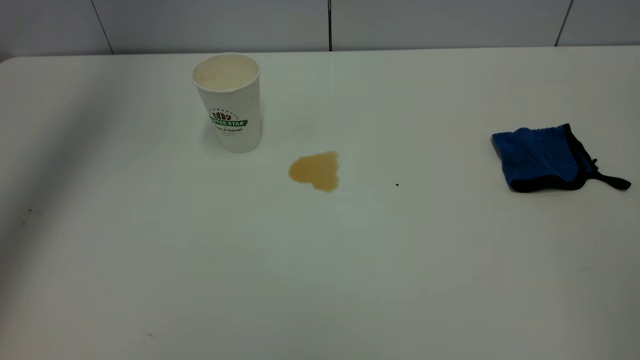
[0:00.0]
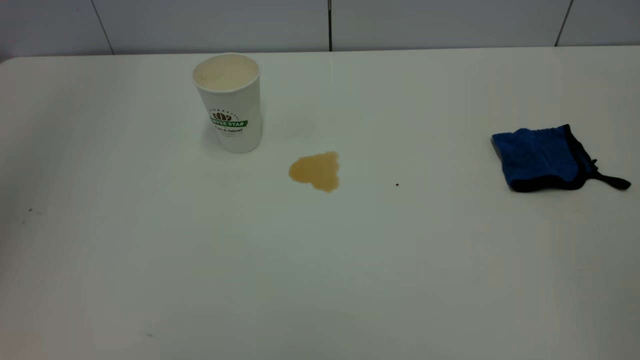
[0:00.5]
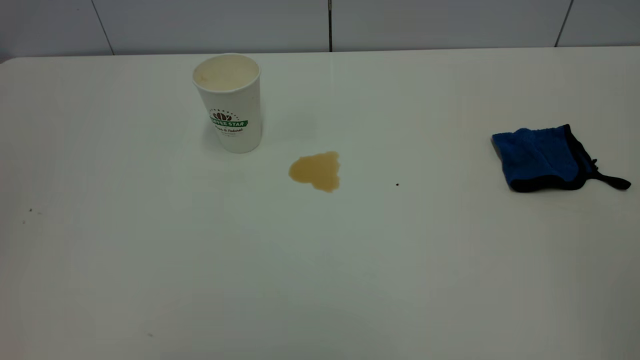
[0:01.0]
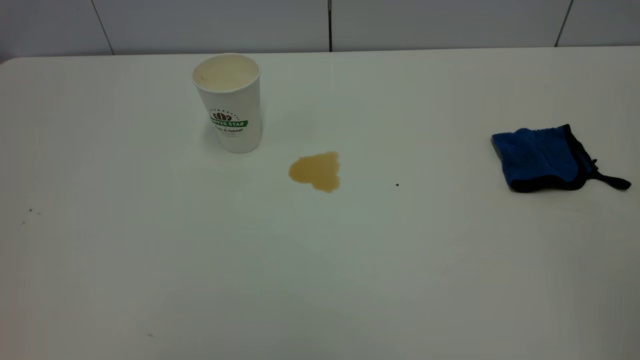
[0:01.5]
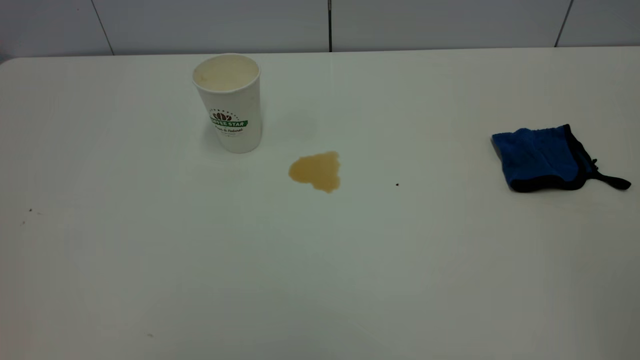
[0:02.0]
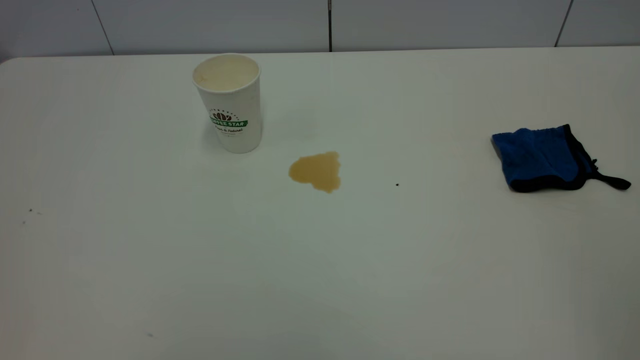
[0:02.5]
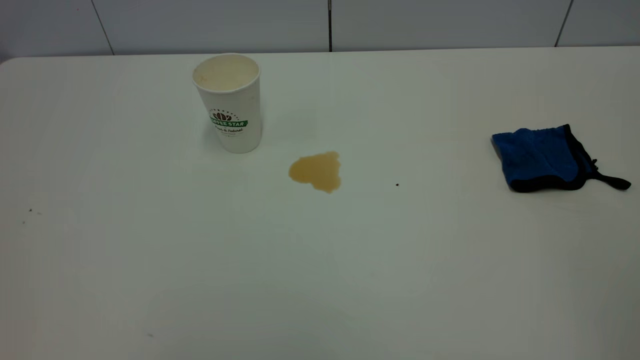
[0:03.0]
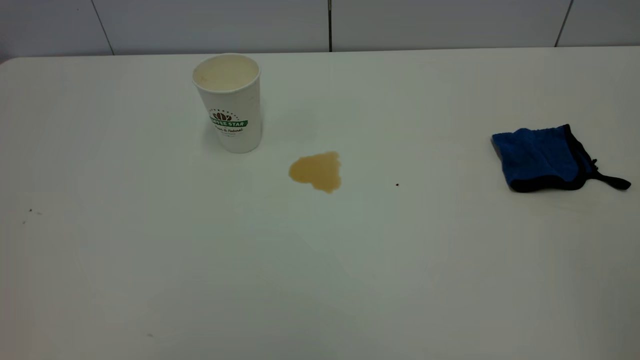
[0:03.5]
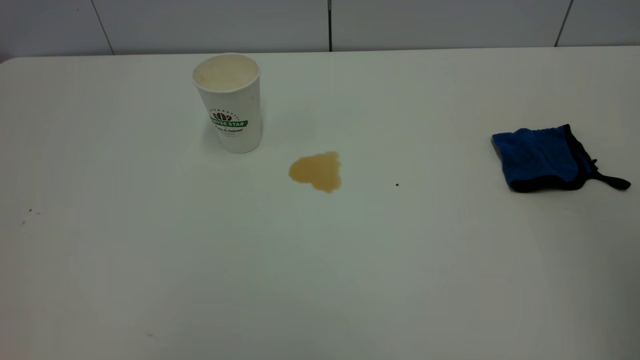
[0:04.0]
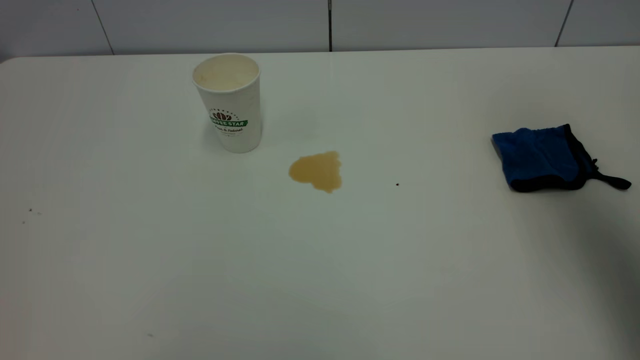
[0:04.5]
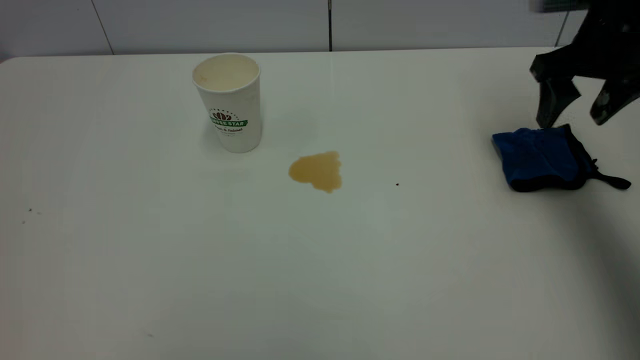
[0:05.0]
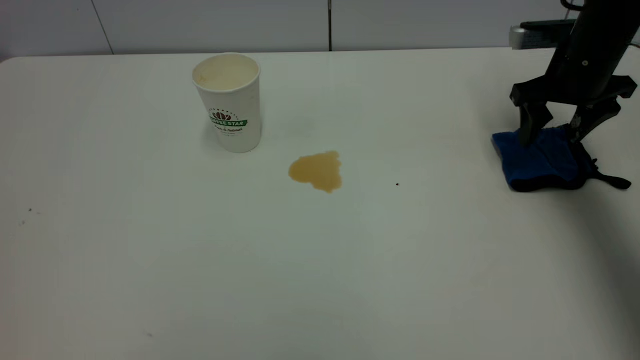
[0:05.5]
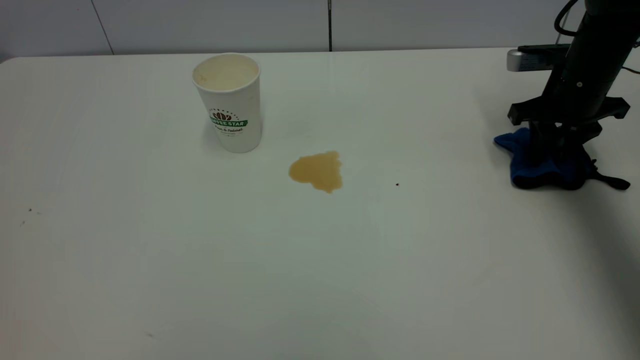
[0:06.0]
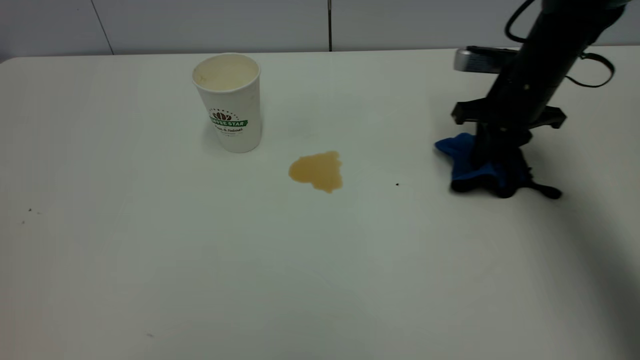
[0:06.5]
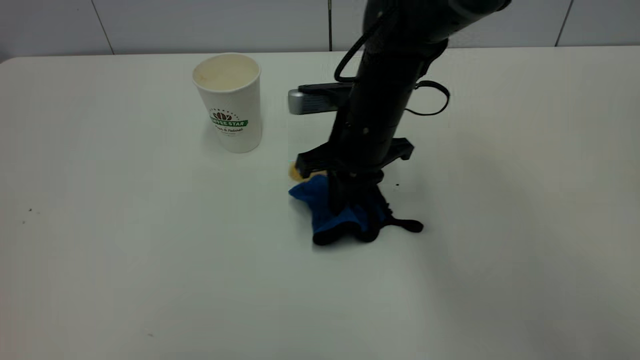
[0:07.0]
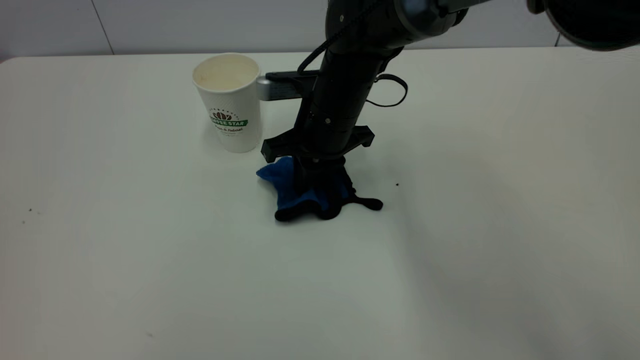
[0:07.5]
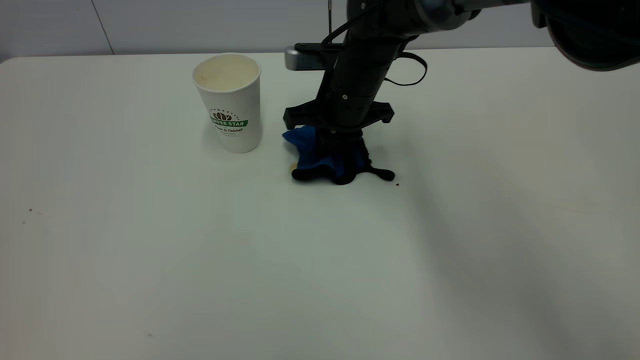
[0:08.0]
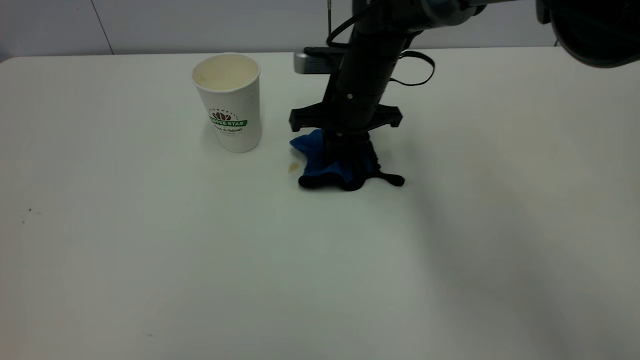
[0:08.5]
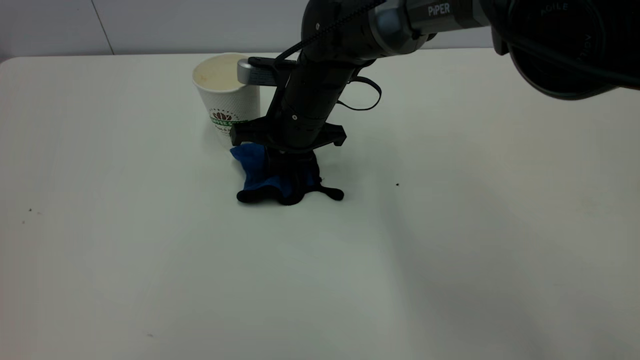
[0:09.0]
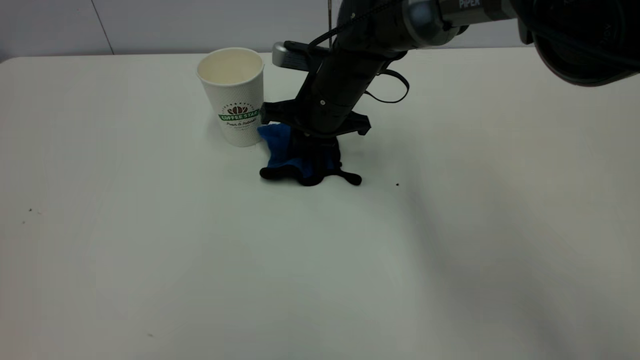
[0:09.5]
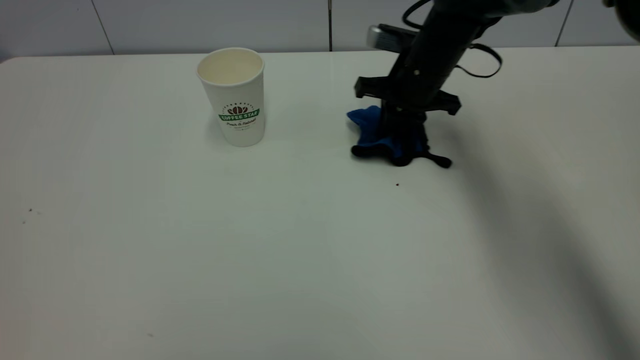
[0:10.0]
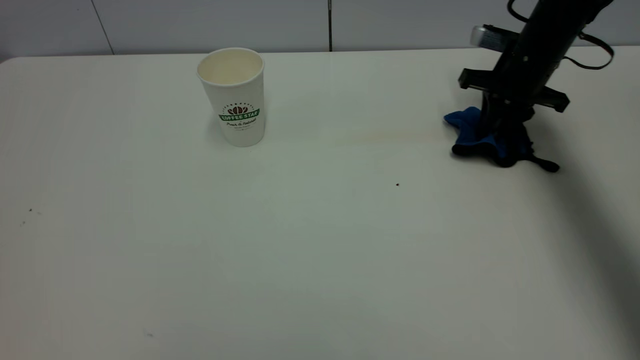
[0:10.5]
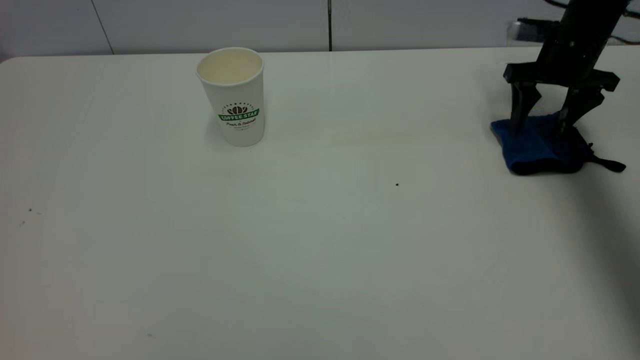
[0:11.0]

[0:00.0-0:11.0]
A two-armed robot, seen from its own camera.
Task of the whole recording: the left gripper pick up the fallen cup and place it upright, the right gripper grasp the blue rag and wipe the tea stain on the table, the right gripper put the blue rag back in its original position.
0:00.0 to 0:02.0: The left gripper heads backward, covering some 50 cm.
0:03.5 to 0:05.5: The right gripper goes some 50 cm forward and downward.
0:05.5 to 0:07.5: The right gripper goes about 30 cm to the left, and closes.
0:09.0 to 0:11.0: The right gripper goes approximately 35 cm to the right, and opens up.

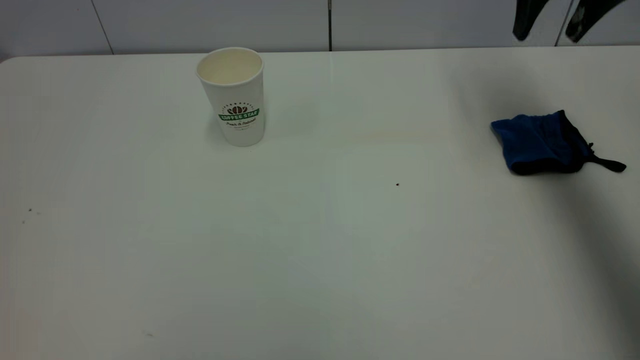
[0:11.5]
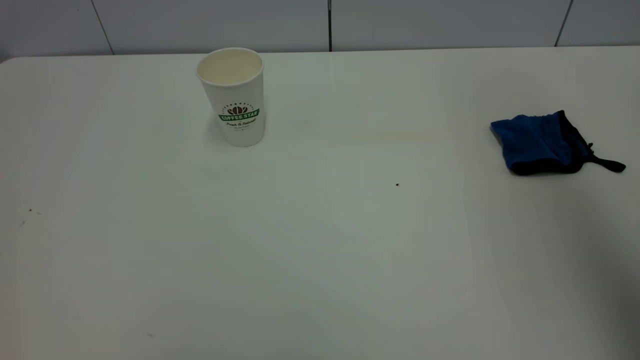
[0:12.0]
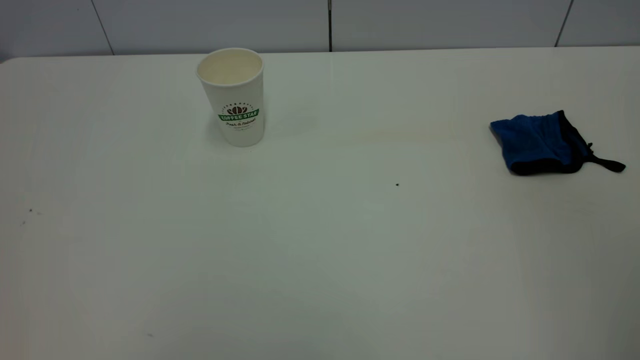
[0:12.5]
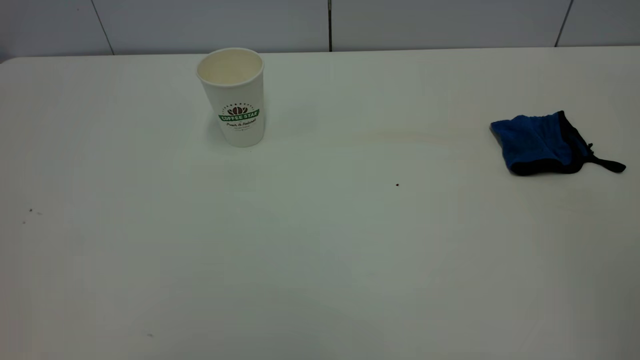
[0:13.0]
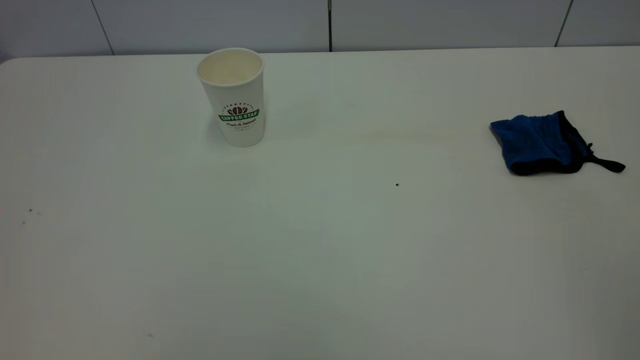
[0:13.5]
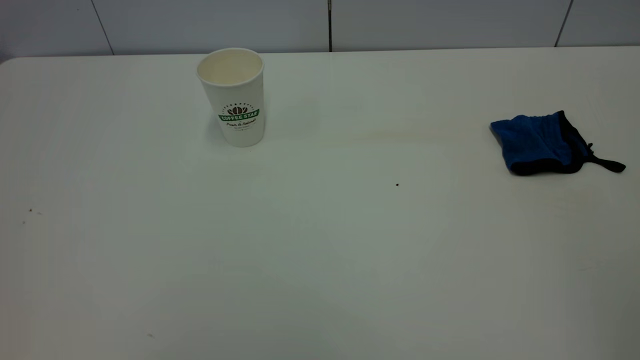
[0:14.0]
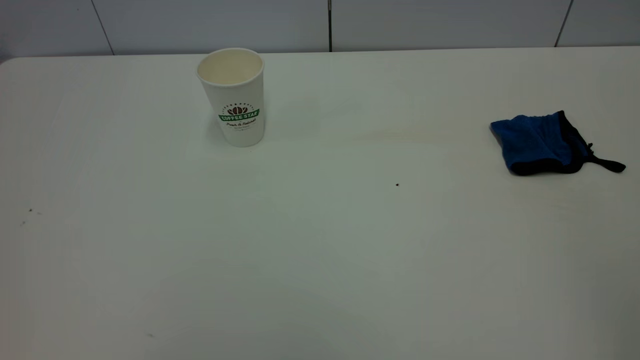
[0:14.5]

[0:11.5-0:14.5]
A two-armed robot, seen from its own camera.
Task of the whole recording: the left gripper pick up the fallen cup and place it upright, the right gripper grasp the blue rag and wipe the tea stain on the table, the right gripper put the blue rag back in its original position.
0:11.5 to 0:13.0: The right gripper is displaced backward by approximately 50 cm.
